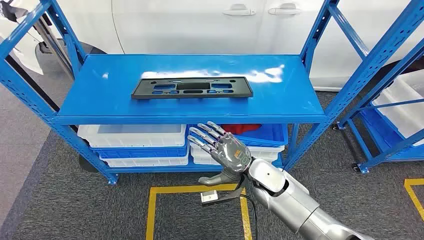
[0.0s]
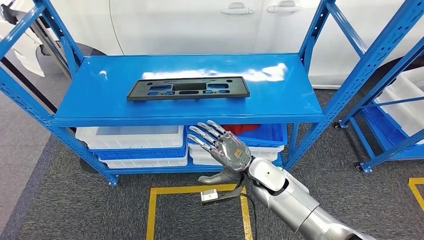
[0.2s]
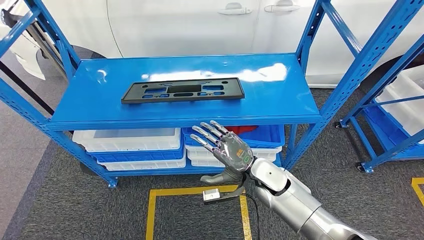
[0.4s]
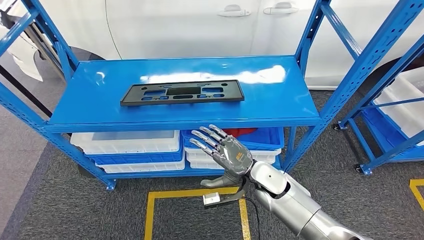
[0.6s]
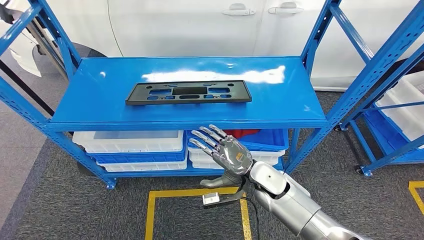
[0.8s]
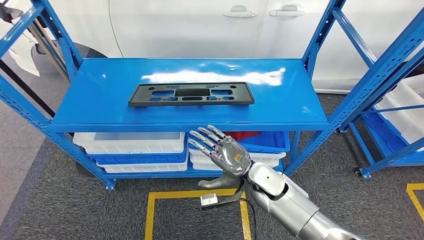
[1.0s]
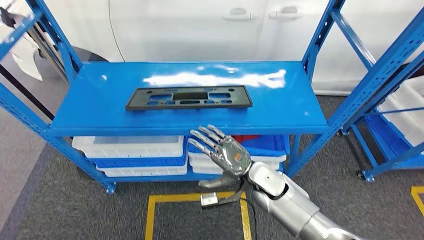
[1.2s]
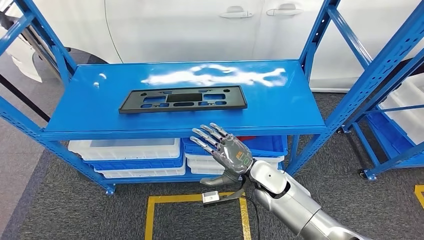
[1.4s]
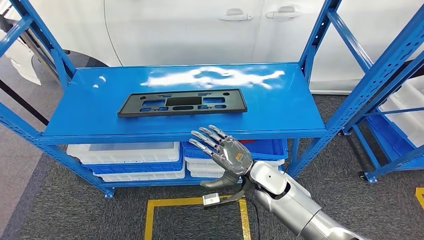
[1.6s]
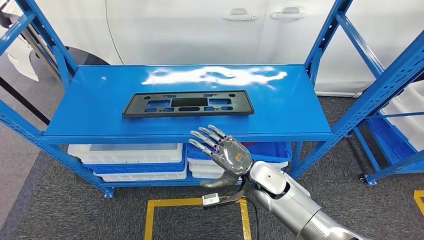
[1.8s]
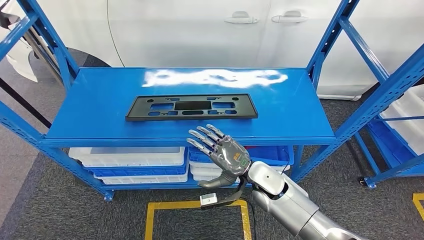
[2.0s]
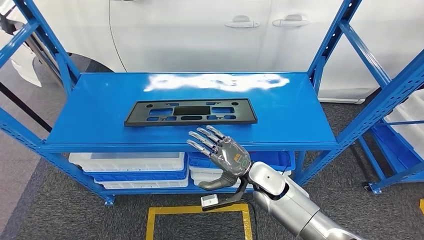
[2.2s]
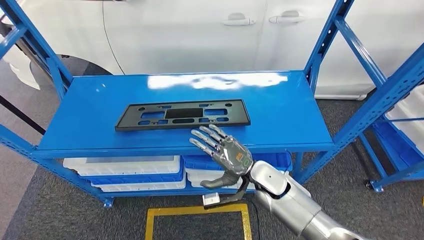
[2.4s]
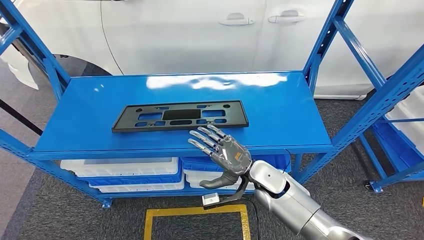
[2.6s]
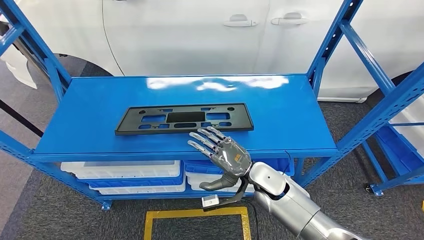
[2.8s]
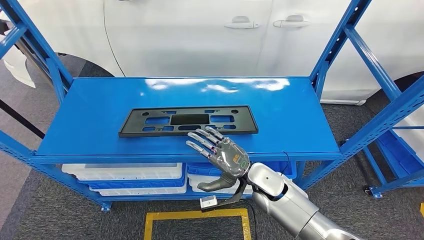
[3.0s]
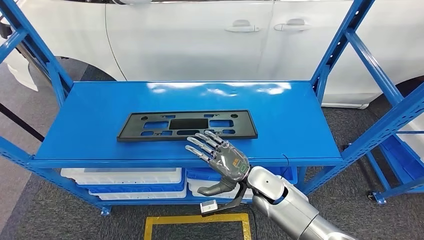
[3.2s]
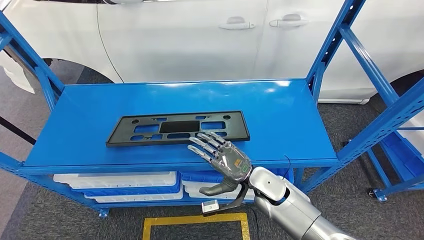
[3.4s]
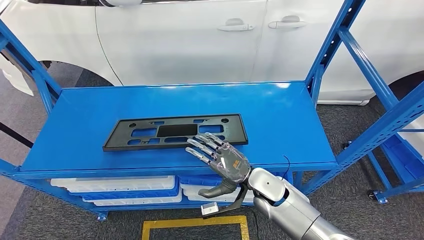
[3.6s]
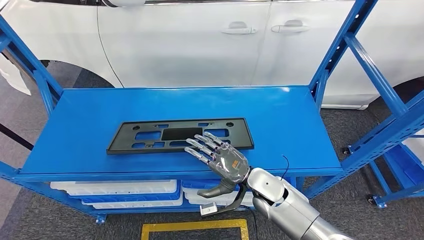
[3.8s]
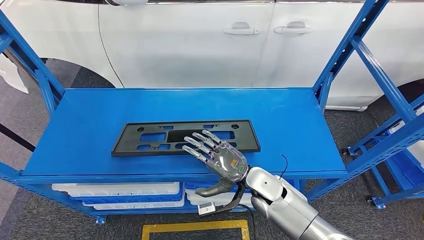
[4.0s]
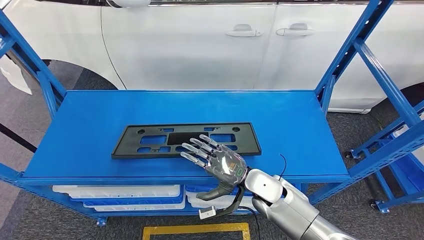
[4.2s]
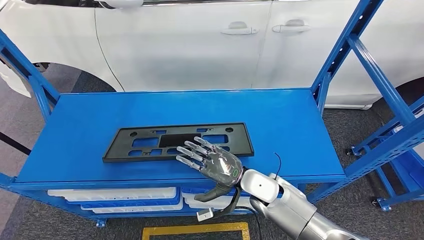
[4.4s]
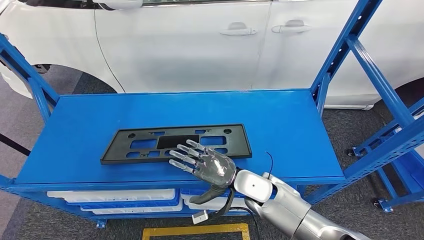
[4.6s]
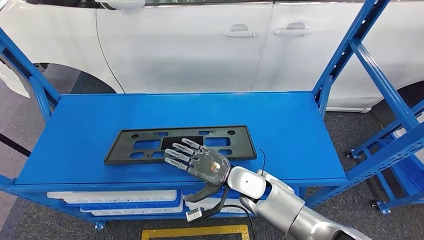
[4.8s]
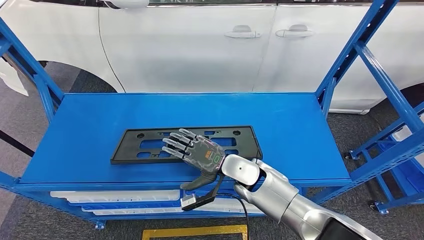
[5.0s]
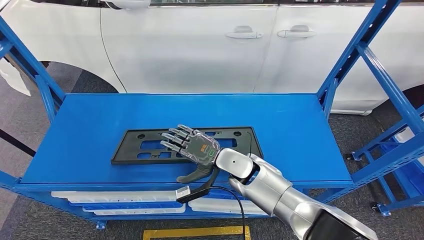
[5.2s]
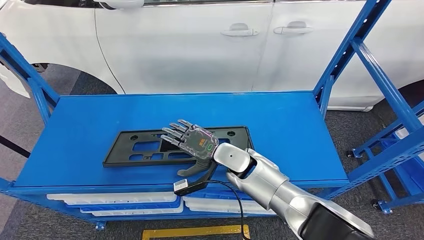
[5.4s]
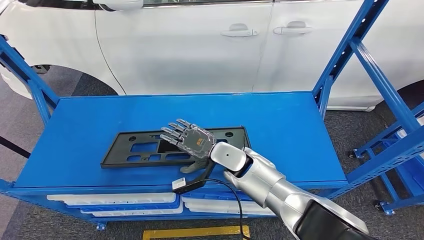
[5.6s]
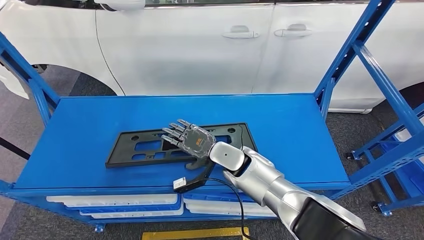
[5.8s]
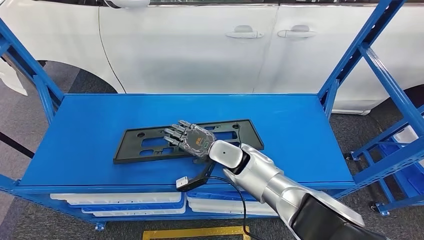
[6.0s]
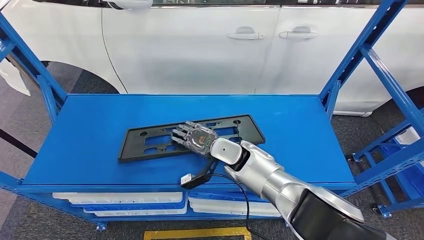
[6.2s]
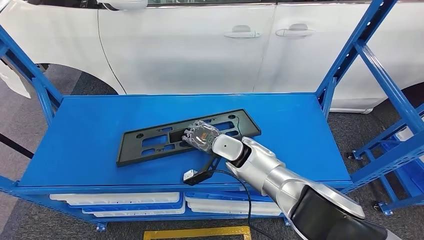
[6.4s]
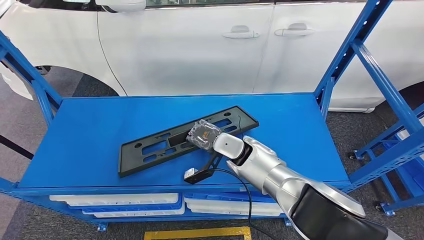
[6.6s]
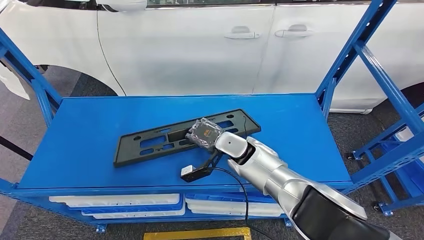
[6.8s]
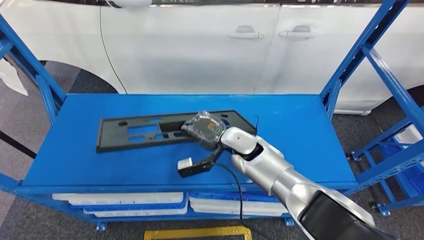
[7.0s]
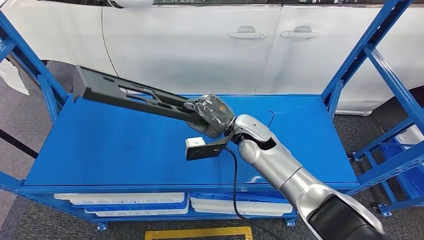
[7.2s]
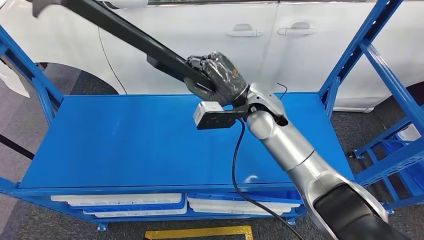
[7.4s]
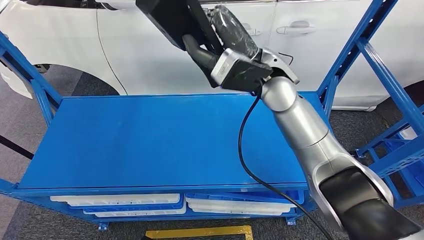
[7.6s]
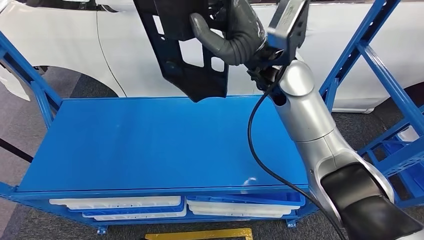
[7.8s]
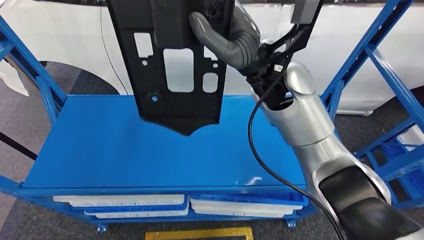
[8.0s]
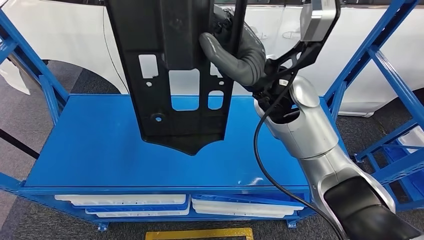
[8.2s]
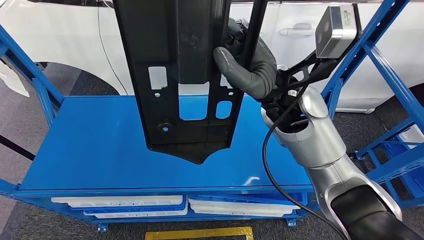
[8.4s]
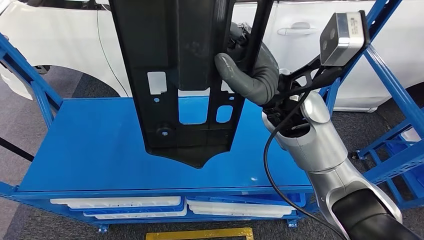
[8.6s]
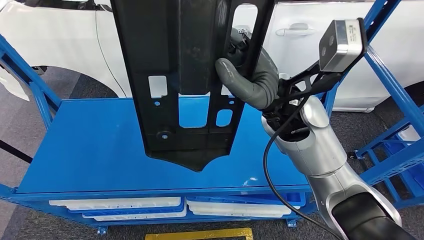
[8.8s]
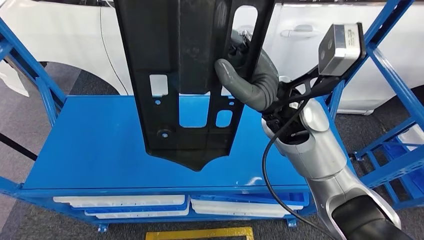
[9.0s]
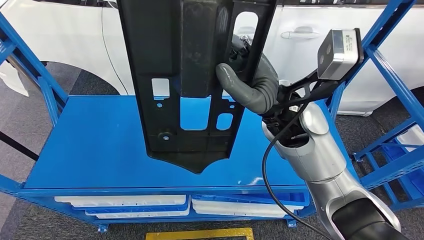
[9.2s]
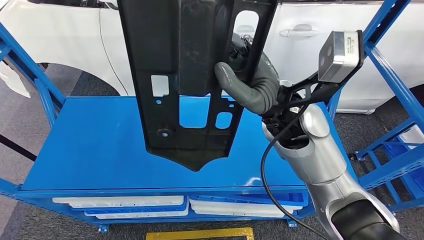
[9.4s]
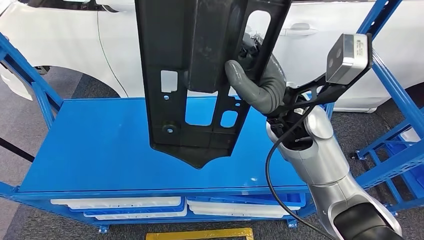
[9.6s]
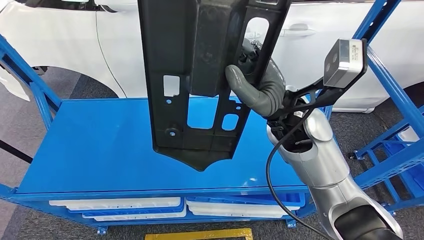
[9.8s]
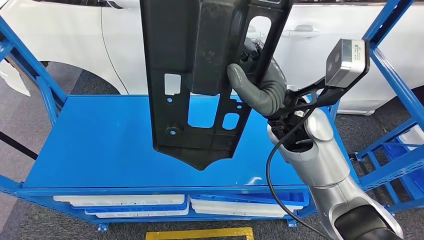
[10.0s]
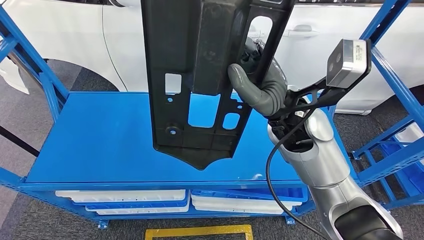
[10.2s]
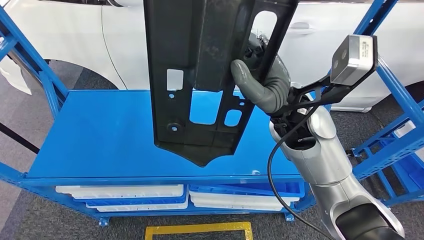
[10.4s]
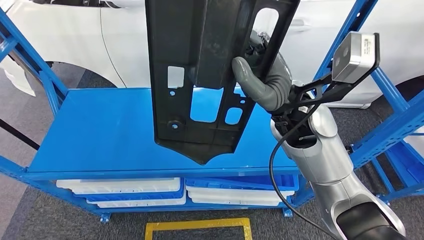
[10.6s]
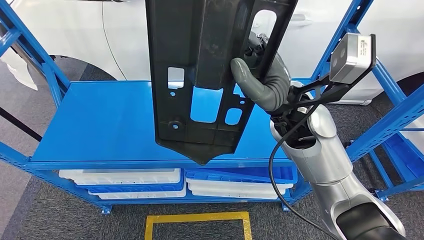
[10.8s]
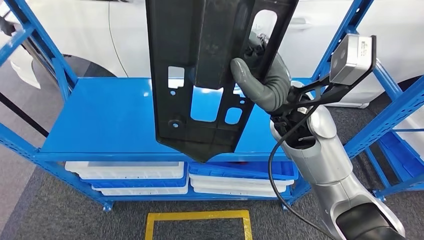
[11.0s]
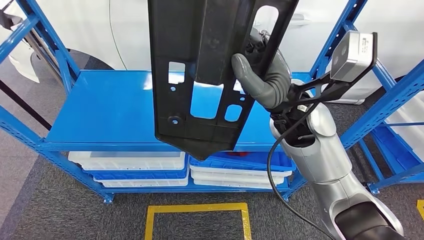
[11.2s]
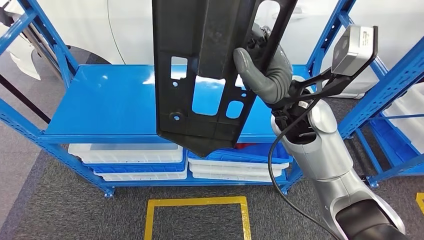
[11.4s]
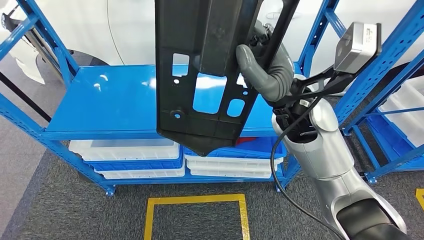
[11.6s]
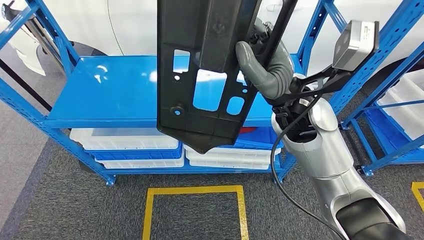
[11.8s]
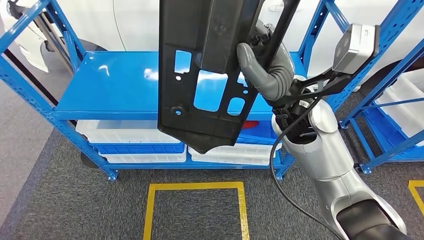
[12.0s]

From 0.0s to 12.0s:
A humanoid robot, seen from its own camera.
Step, from 0.0s to 7.2s: Pick up the large material from the shelf.

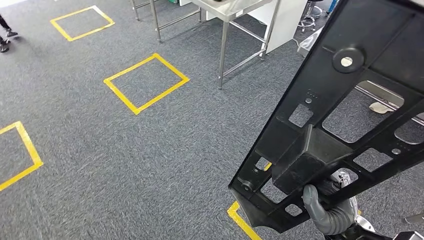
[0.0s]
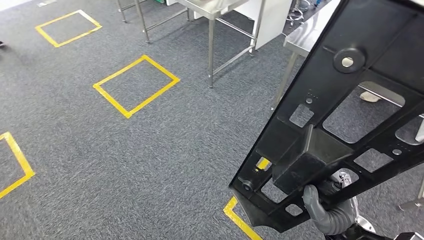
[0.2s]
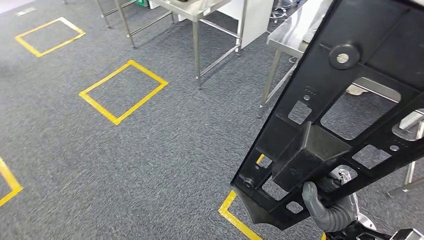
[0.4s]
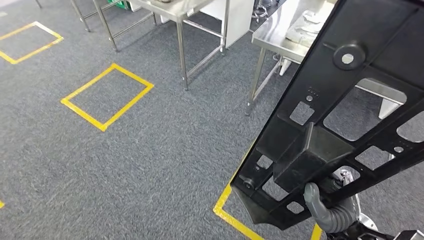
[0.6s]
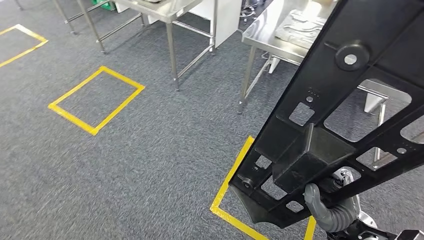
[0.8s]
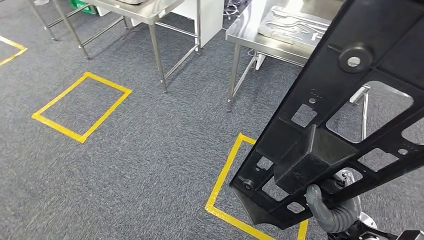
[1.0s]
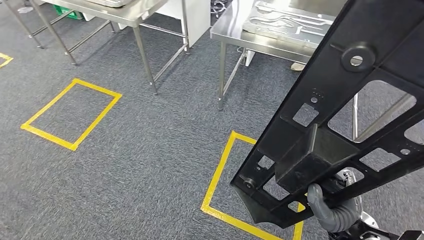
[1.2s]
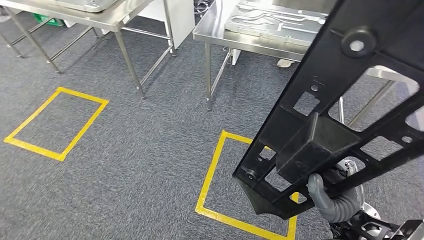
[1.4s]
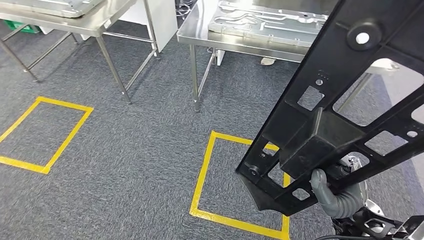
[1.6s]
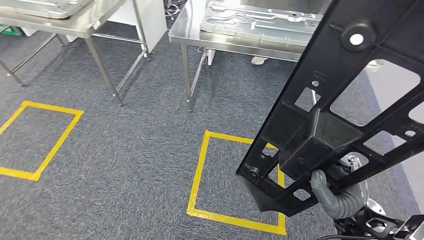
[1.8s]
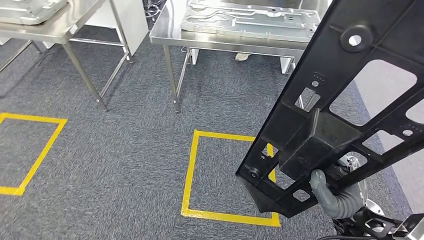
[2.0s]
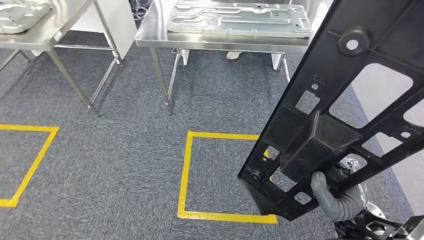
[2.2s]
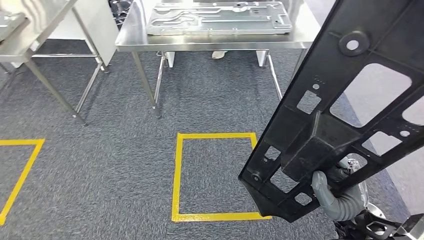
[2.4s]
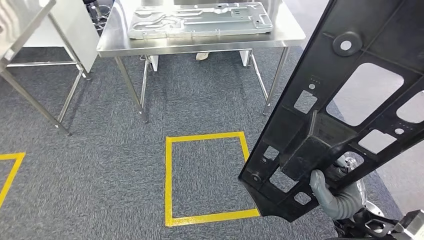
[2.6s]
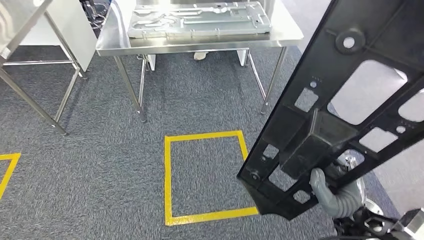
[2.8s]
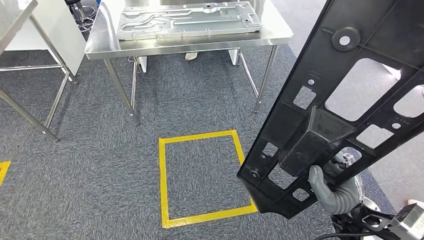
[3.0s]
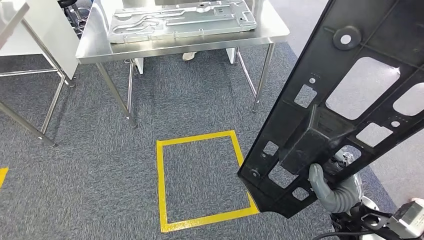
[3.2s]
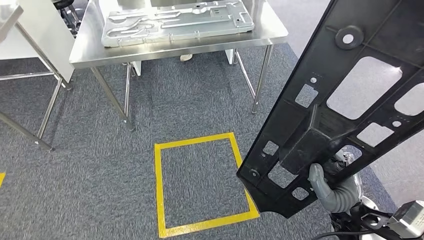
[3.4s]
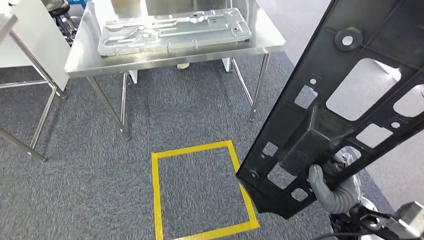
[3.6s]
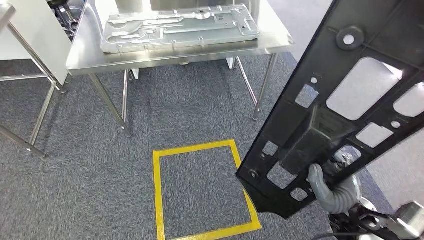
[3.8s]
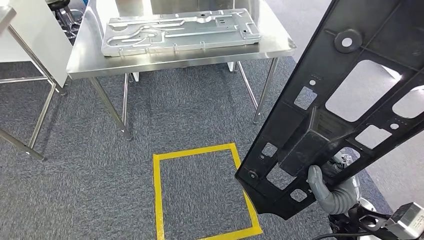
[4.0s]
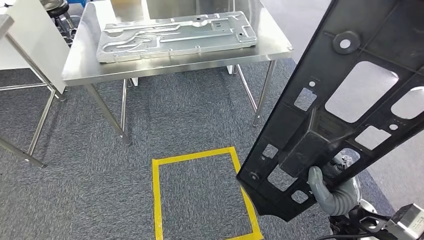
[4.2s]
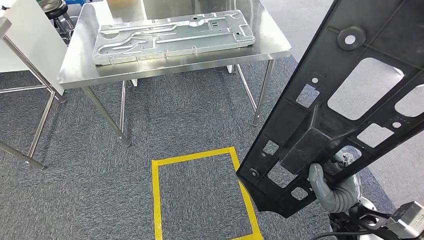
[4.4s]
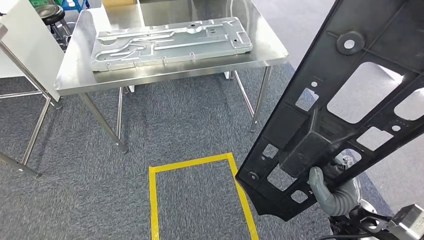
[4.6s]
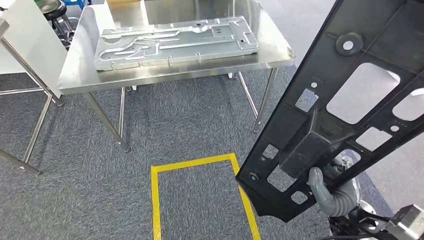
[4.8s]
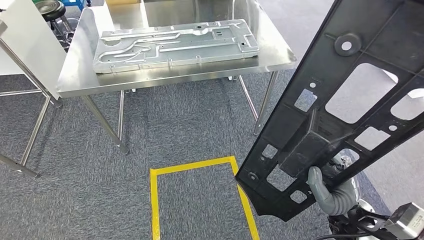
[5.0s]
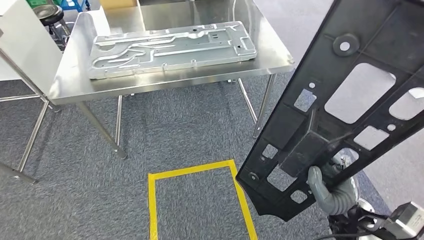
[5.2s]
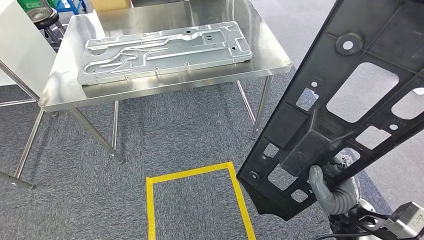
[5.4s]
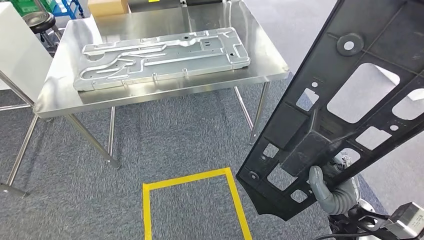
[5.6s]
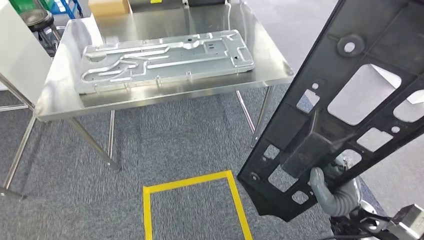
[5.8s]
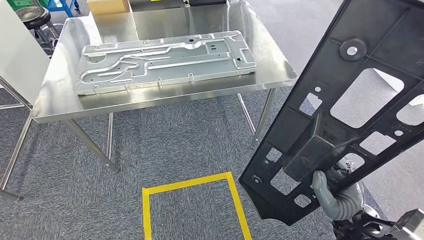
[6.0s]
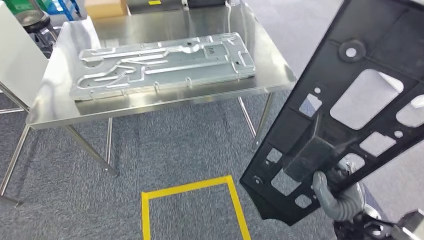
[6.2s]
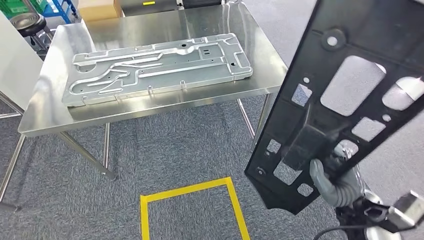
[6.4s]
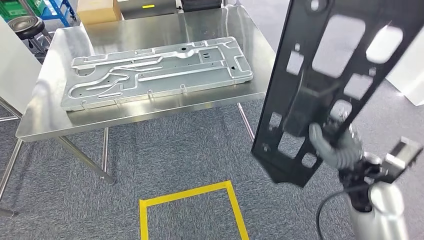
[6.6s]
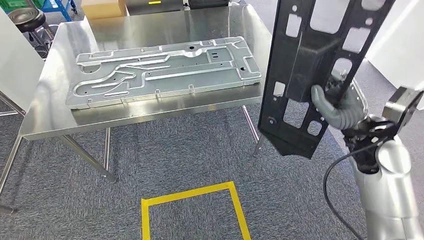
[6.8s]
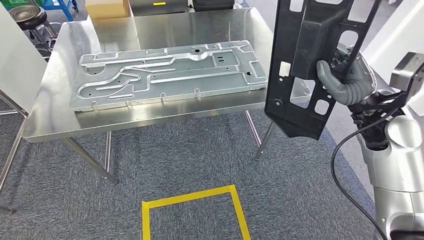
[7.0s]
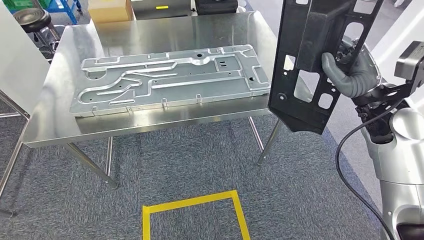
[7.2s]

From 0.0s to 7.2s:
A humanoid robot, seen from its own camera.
Step, from 0.0s to 6.8s: Move the large material to the workbench.
